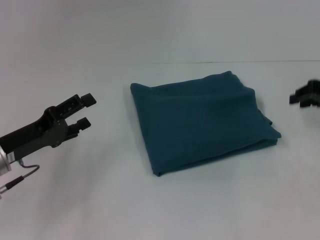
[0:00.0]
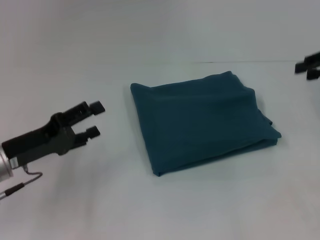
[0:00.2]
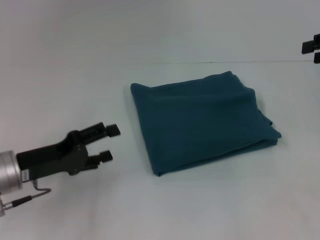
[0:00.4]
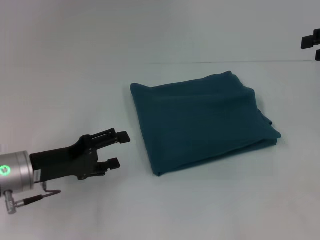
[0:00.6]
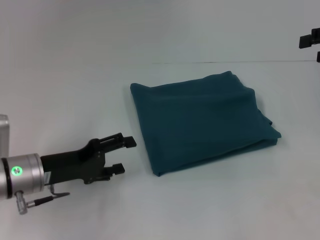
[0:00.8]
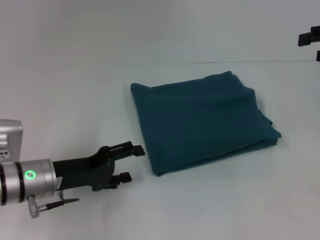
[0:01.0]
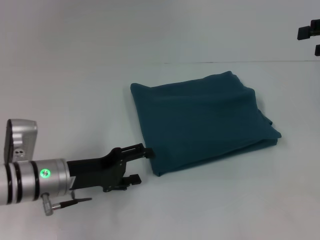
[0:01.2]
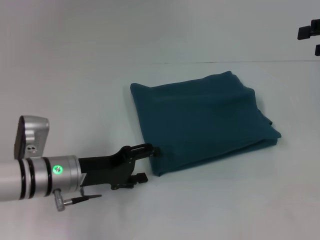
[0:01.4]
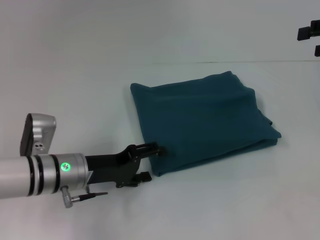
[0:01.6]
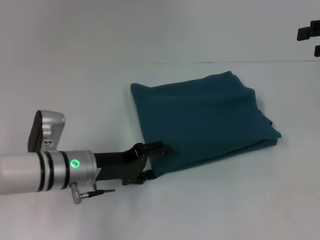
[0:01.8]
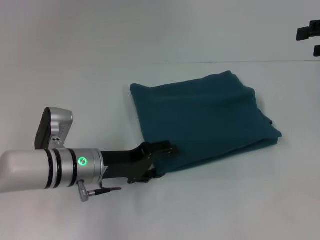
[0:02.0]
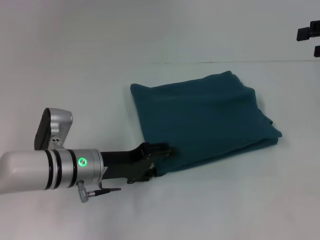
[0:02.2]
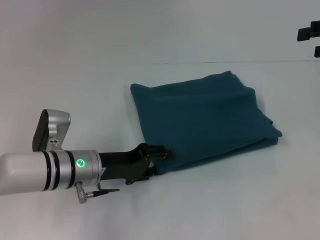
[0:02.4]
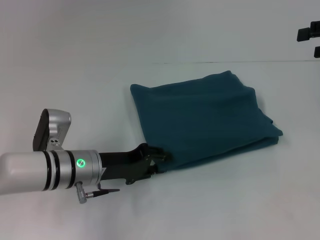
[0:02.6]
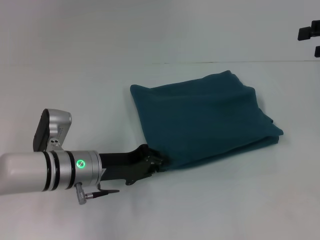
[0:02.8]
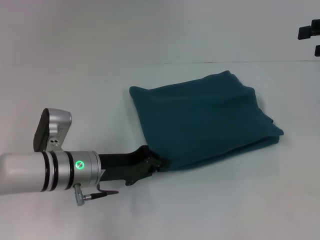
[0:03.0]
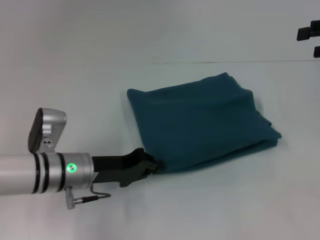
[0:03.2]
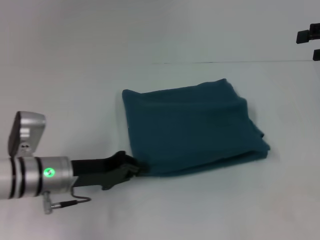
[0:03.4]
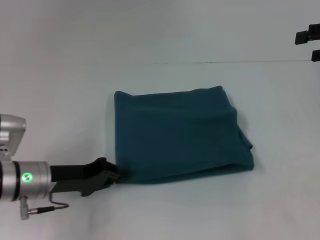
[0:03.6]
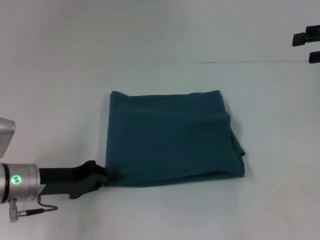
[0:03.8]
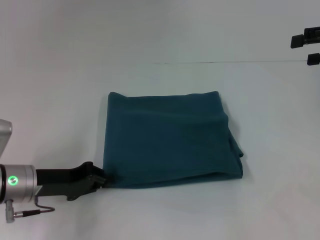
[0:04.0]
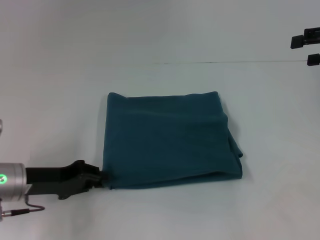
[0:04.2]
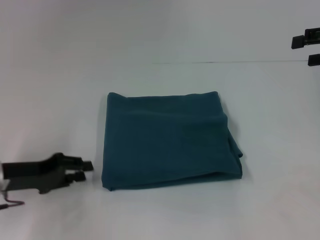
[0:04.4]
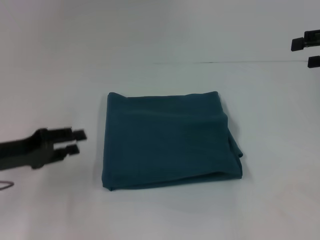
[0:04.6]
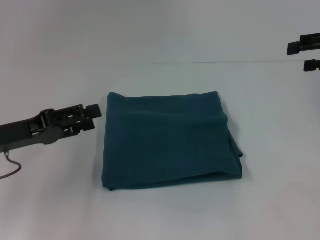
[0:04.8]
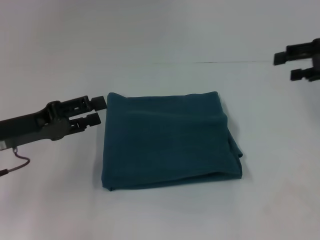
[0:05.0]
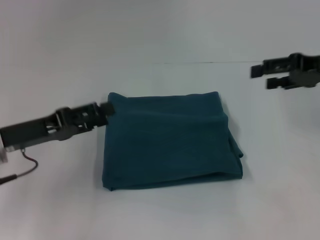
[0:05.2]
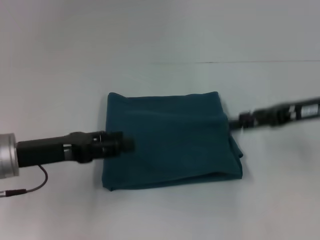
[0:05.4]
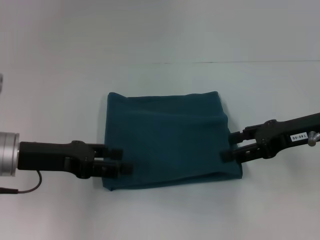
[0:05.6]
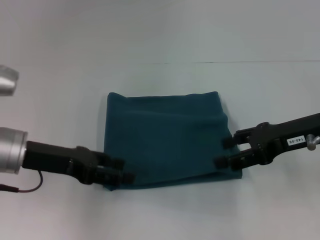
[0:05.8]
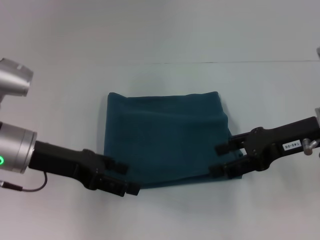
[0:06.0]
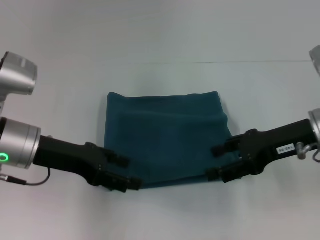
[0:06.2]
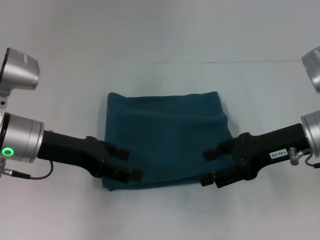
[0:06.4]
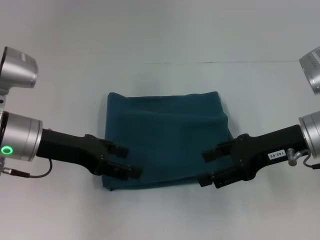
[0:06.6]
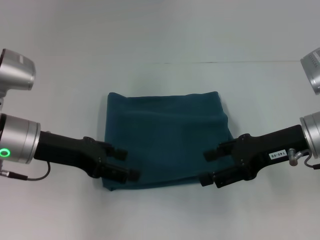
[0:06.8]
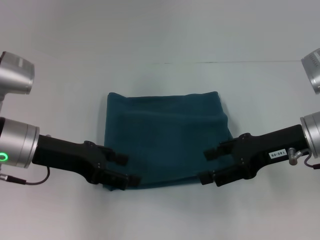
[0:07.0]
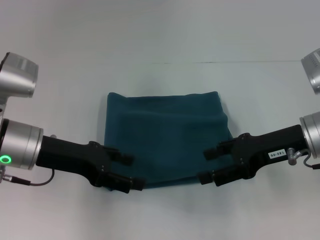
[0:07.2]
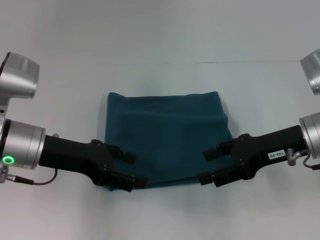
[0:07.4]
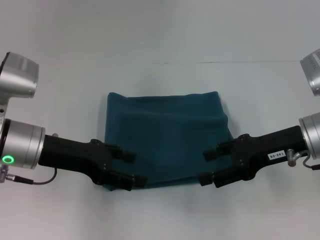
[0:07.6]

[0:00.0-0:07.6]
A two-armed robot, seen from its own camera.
0:00.0 to 0:01.6: The left gripper is displaced to the right by roughly 10 cm, while the right gripper is displaced upward by about 5 cm, and opens.
0:01.6 to 0:03.0: The left gripper closes up.
0:03.0 to 0:04.6: The left gripper moves to the left, approximately 15 cm.
0:04.6 to 0:06.0: The right gripper heads to the left, downward and backward, covering some 15 cm, while the left gripper travels to the right by about 5 cm, and opens up.
0:06.0 to 0:07.6: The grippers make only small movements.

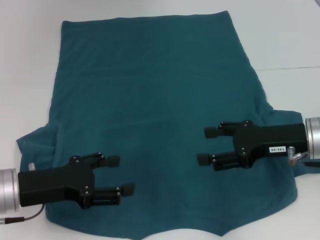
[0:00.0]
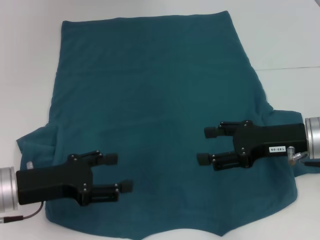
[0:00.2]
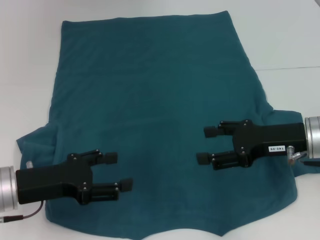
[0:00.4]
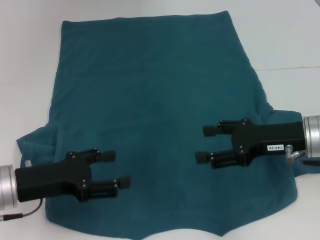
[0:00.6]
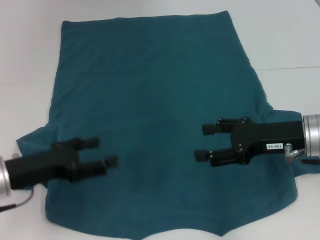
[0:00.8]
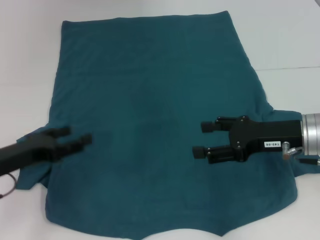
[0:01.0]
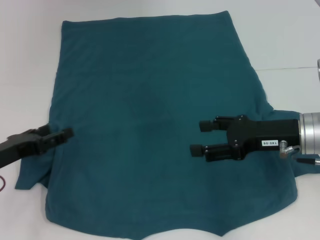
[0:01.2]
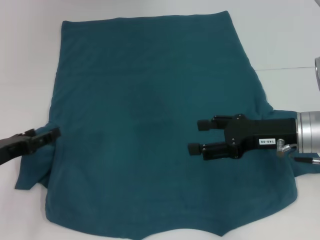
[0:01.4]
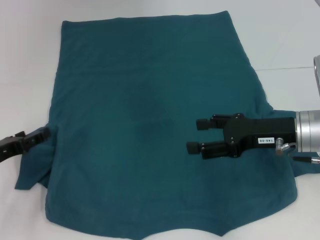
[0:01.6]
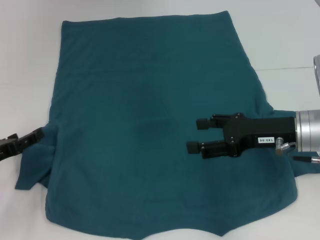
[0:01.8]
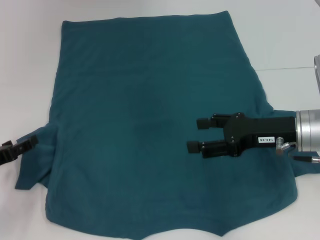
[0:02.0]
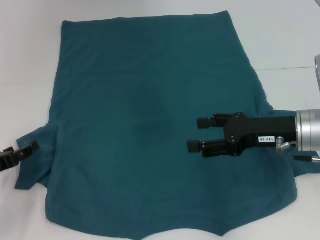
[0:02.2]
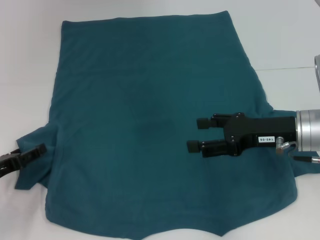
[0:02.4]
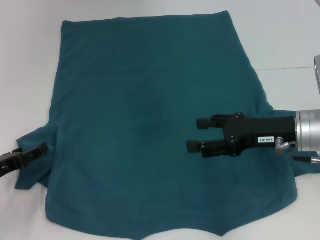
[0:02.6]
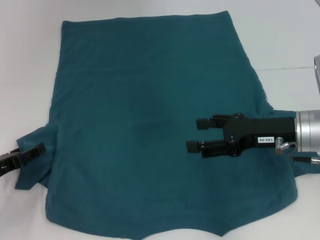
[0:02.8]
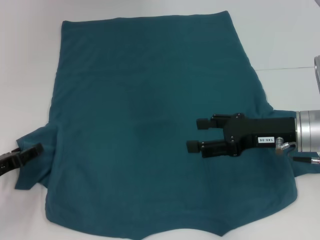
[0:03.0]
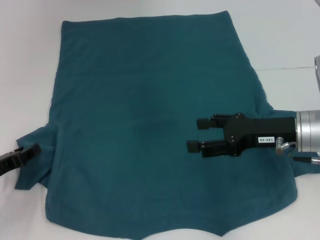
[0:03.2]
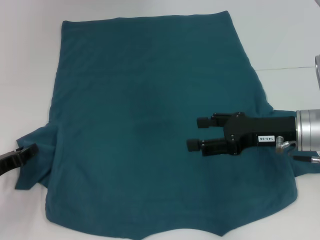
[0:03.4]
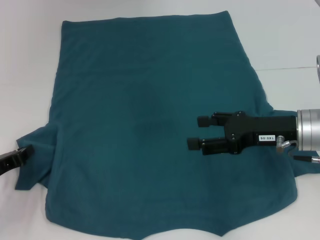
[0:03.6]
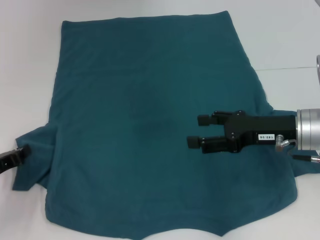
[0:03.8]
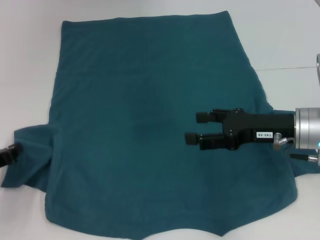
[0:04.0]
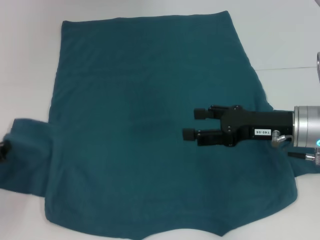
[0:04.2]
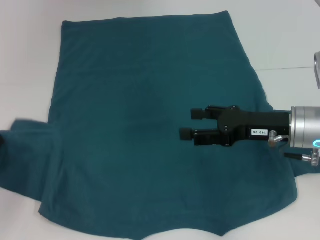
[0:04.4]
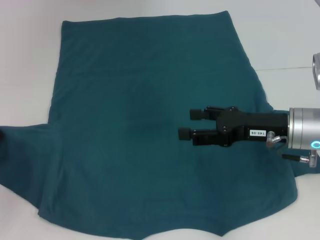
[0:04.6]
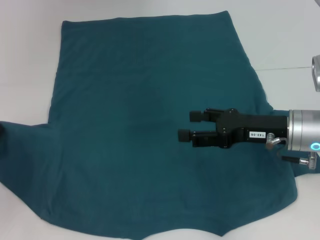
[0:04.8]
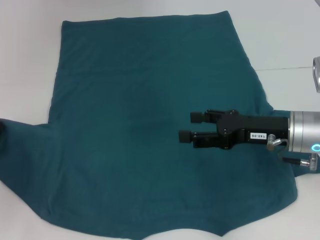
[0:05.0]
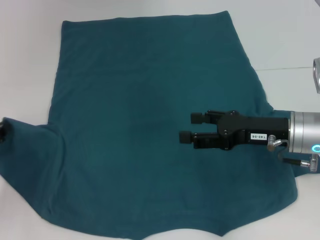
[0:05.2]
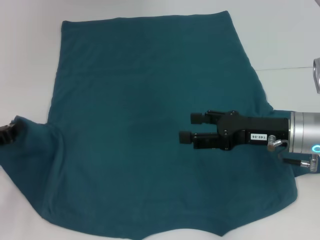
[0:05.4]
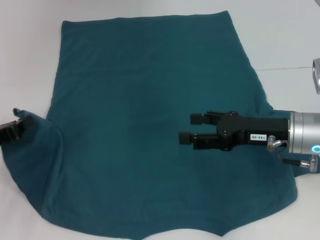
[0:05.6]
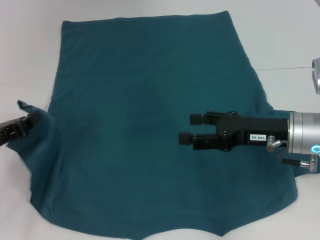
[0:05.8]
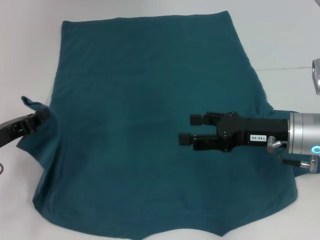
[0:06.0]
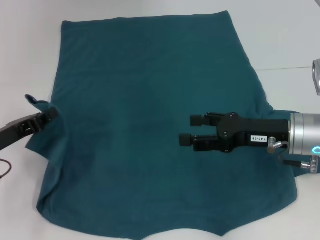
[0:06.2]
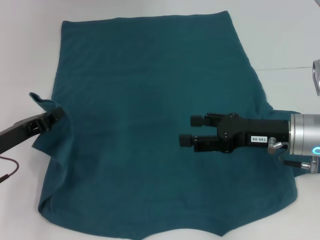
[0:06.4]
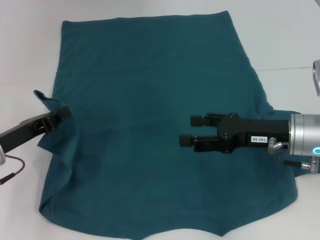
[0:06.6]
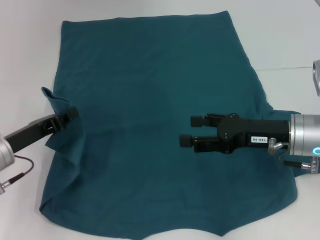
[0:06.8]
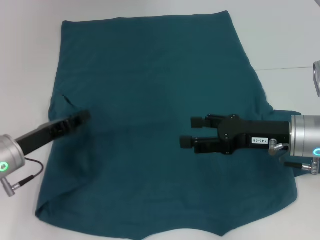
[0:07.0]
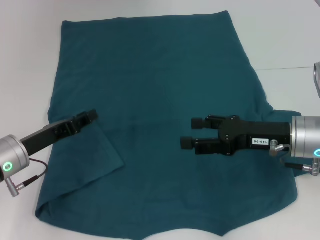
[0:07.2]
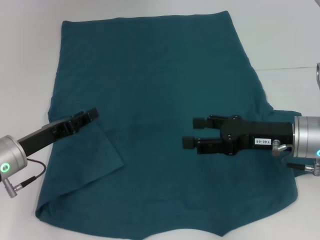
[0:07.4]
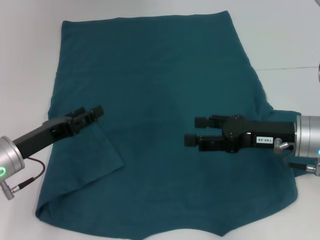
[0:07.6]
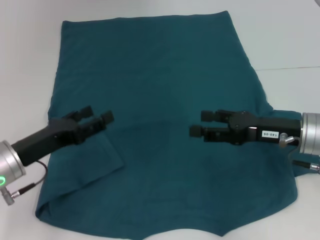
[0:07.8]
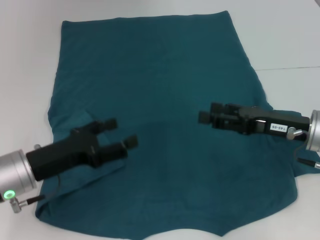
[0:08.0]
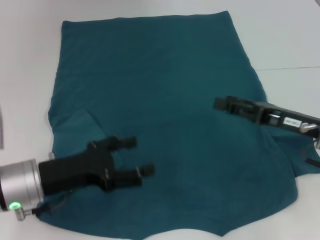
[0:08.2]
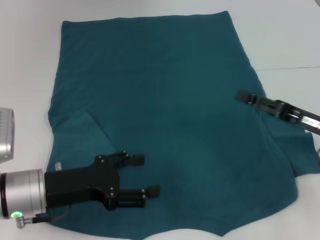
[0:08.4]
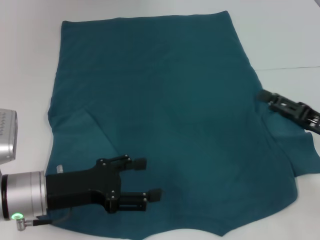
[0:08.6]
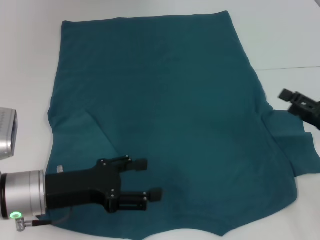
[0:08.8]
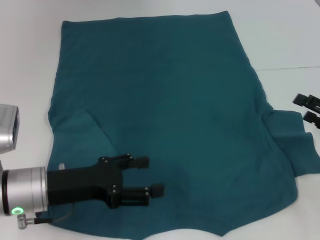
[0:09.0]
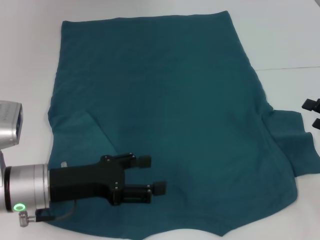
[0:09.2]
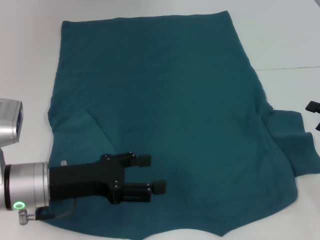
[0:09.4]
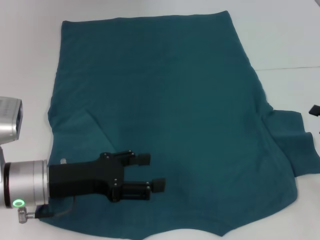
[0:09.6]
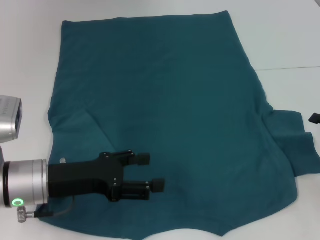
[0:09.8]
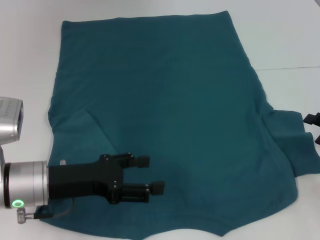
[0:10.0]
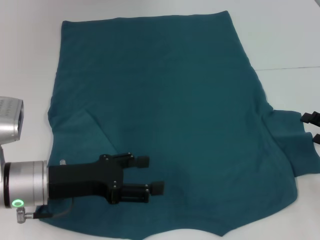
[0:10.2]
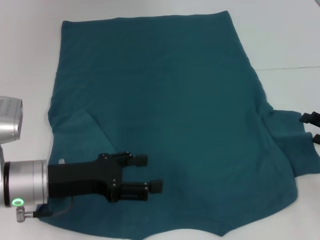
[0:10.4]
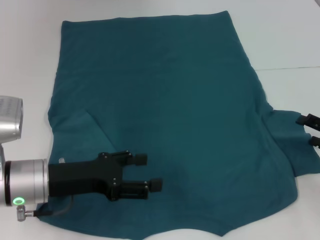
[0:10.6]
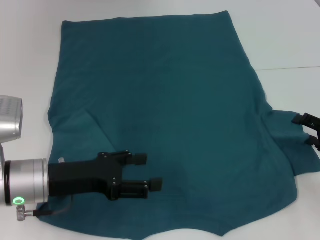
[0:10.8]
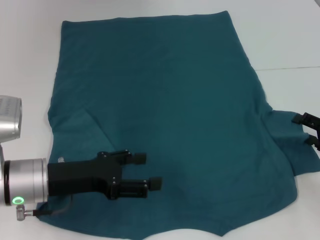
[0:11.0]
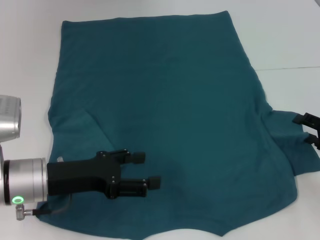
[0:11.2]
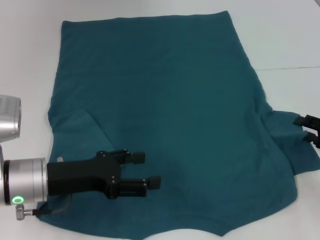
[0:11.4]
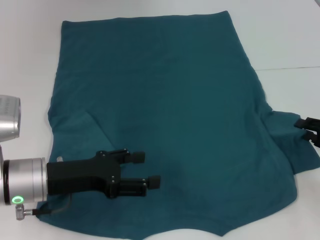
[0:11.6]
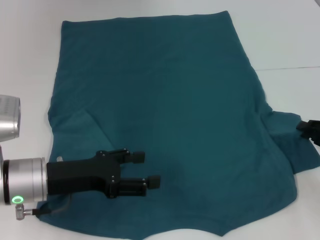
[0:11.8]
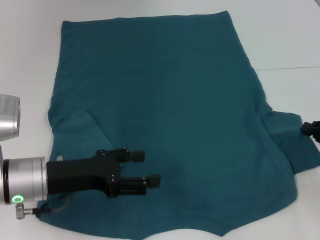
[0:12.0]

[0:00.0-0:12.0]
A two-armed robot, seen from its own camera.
Step, 0:00.0 to 0:07.4: Fold the bottom left sleeve with your left hand.
0:00.0 to 0:01.6: The left gripper travels to the left by some 10 cm.
0:01.6 to 0:03.0: The grippers move only a little.
0:03.0 to 0:04.4: The left gripper closes.
0:04.4 to 0:06.0: The left gripper ends up some 5 cm from where it was.
0:06.0 to 0:07.6: The left gripper shifts roughly 5 cm to the right, and opens.
0:07.6 to 0:09.0: The left gripper moves some 5 cm, and opens its fingers. The right gripper shifts approximately 15 cm to the right.
0:09.0 to 0:10.4: The grippers move only a little.
0:10.4 to 0:12.0: The right gripper closes up.

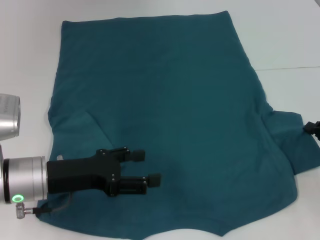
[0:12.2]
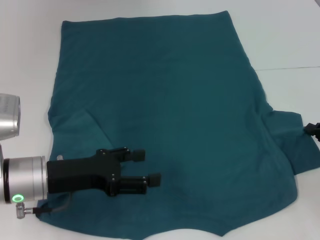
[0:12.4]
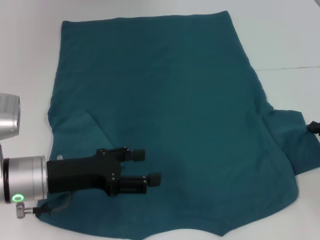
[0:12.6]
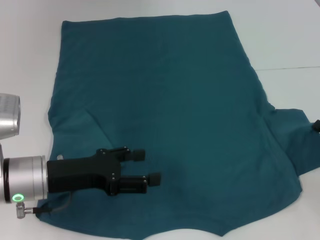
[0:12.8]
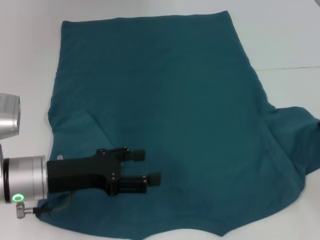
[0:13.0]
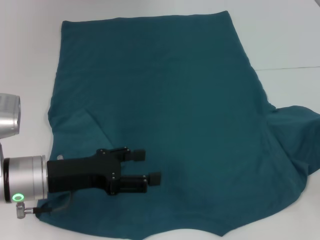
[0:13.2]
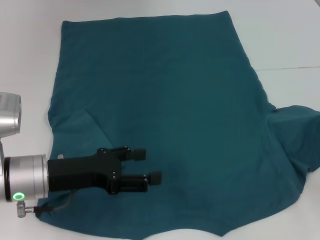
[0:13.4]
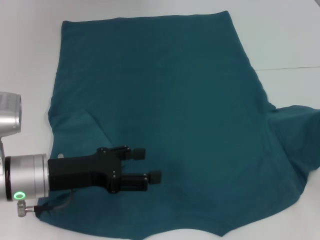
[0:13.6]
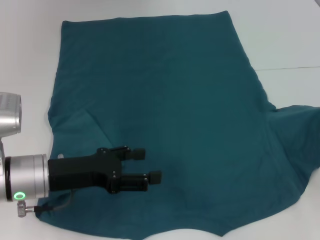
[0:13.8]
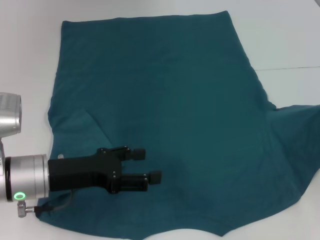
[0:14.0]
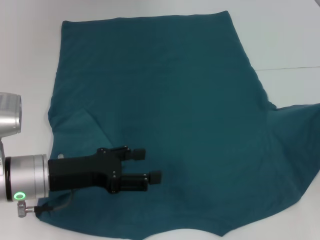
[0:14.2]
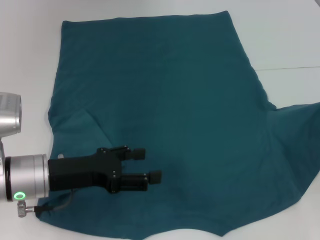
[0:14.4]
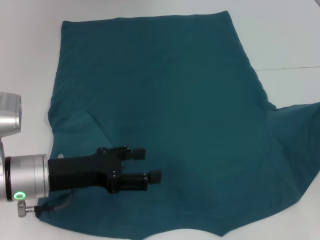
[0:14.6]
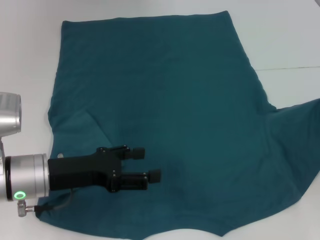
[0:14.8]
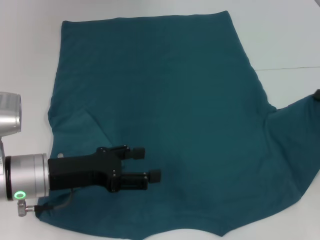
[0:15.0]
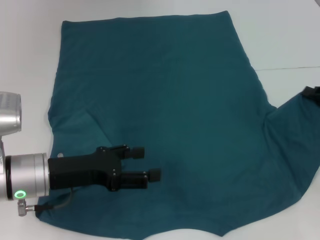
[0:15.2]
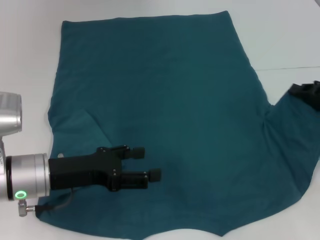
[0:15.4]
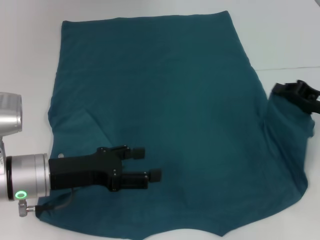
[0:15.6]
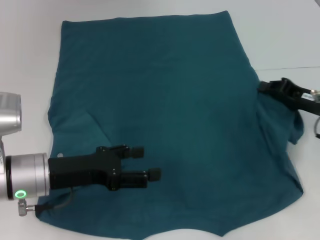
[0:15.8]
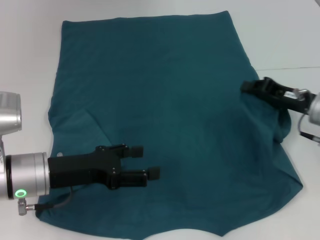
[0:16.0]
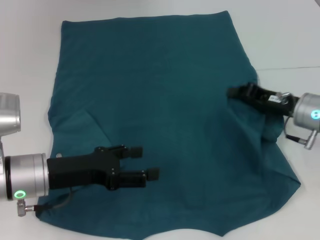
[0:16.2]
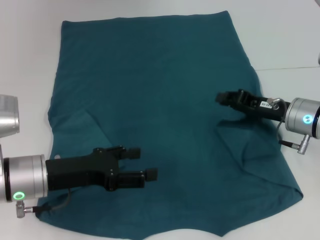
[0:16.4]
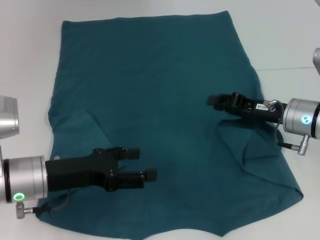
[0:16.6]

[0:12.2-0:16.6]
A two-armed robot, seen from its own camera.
0:12.2 to 0:15.2: The grippers make only small movements.
0:15.2 to 0:16.6: The right gripper is displaced to the left by about 10 cm.
